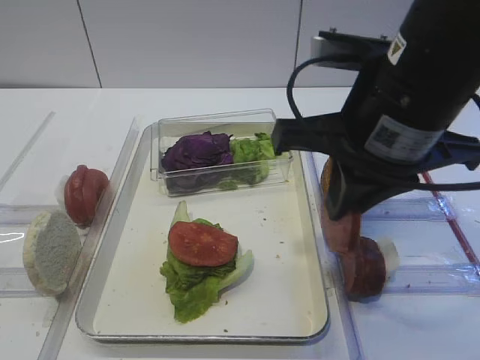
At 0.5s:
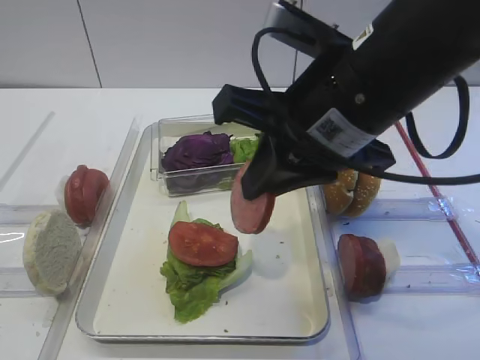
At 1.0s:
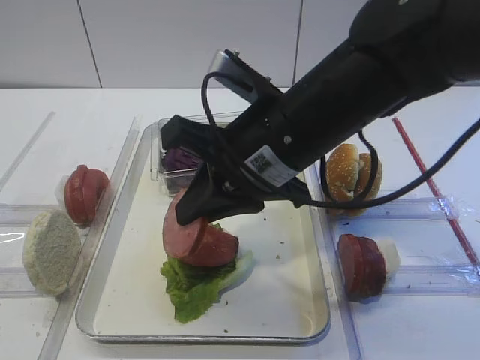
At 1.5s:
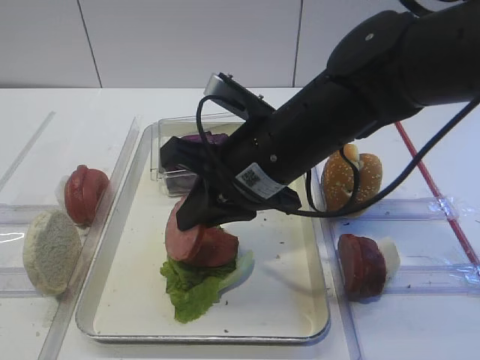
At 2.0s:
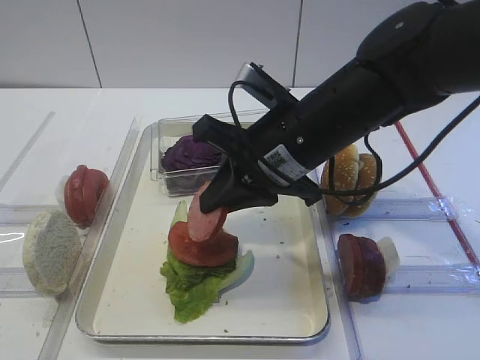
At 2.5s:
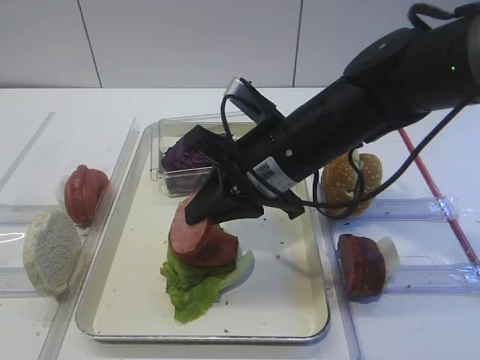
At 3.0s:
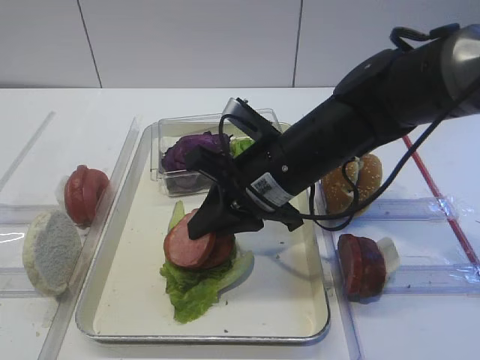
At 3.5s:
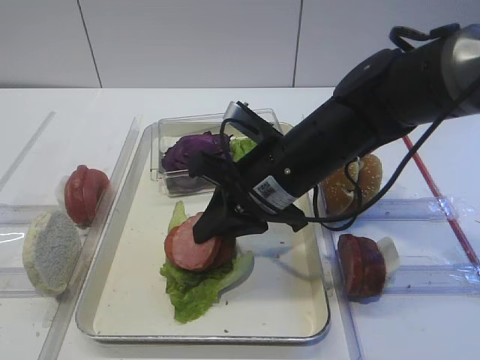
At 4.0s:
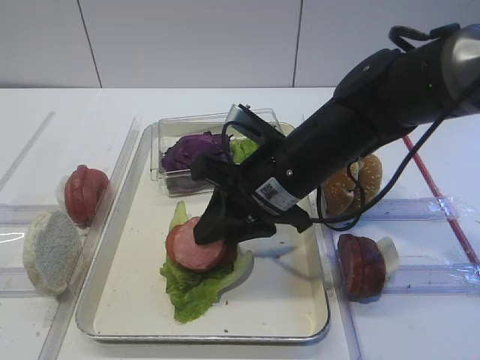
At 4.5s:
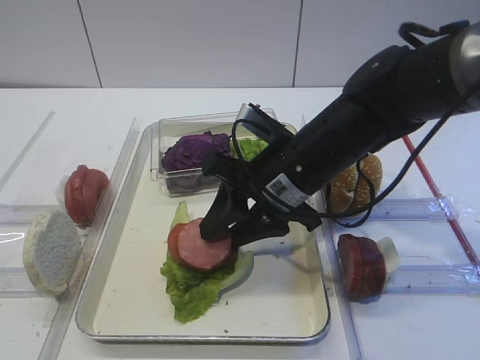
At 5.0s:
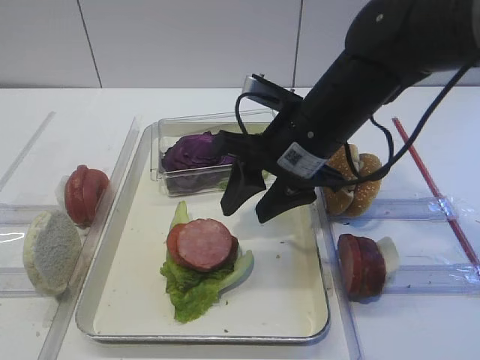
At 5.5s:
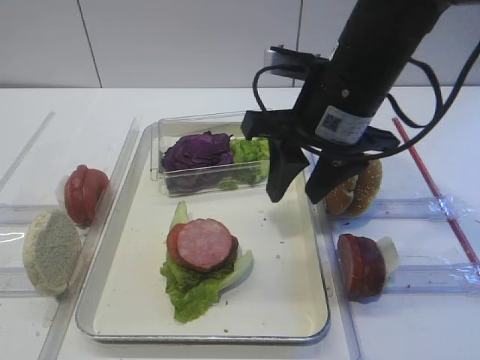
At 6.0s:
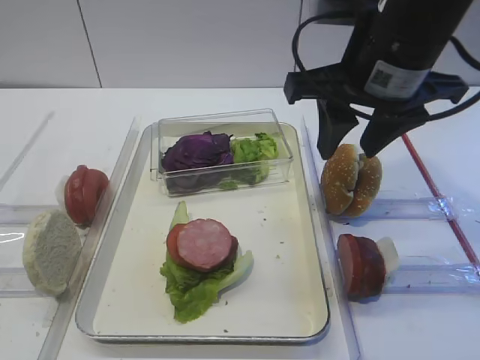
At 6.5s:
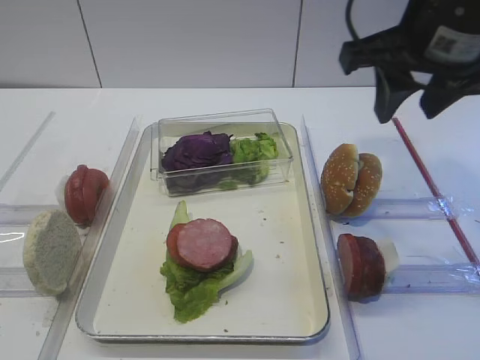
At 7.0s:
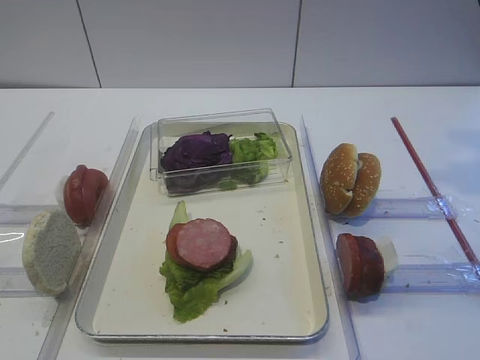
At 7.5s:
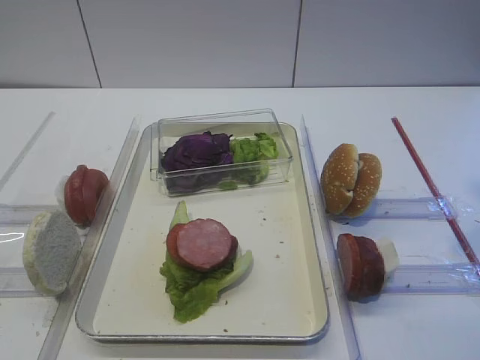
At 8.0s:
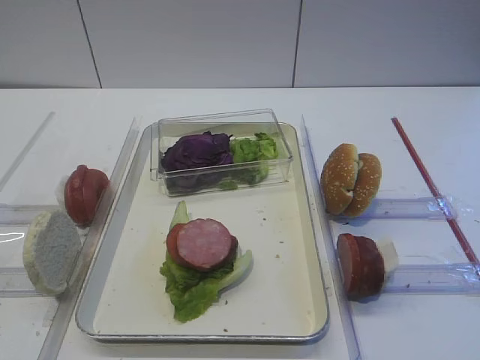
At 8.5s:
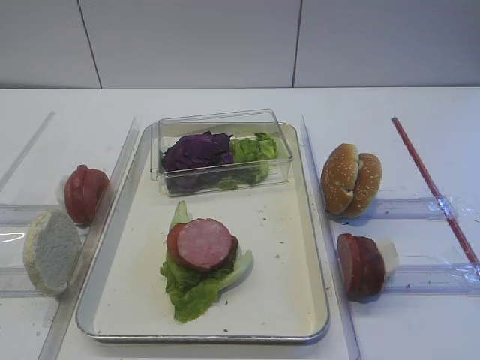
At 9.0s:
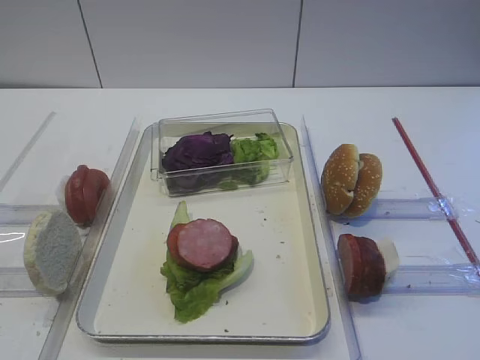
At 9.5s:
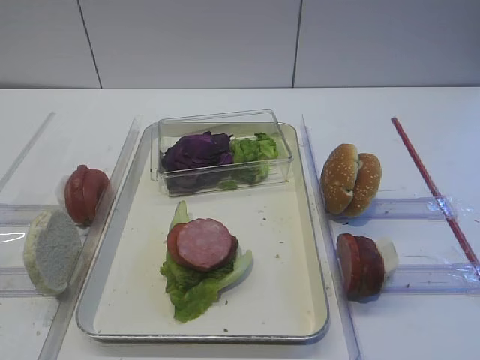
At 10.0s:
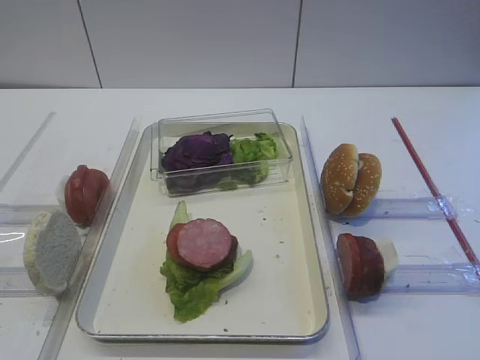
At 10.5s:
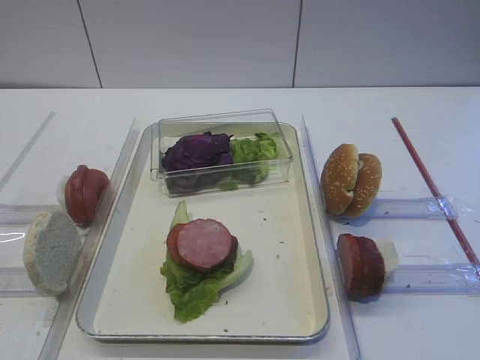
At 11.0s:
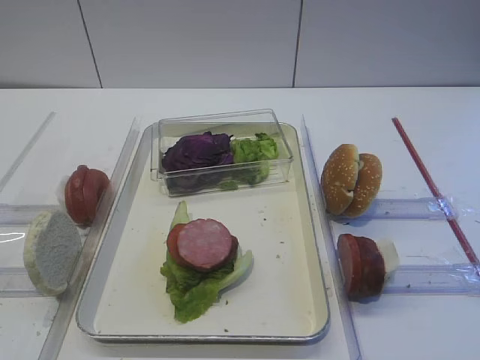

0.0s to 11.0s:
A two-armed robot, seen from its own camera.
Step, 0.0s to 4.5s: Place the cutlet on the tomato slice with the right gripper.
0.0s to 2.0s: The right gripper heads downward and forward, covering about 10 cm.
2.0s to 3.5s: The grippers make only small movements.
3.5s to 5.5s: The right gripper moves upward, approximately 10 cm, and opens its fingers.
5.5s to 7.5s: The right gripper heads to the right, backward and upward, covering roughly 20 cm.
9.0s to 11.0s: Neither gripper changes place.

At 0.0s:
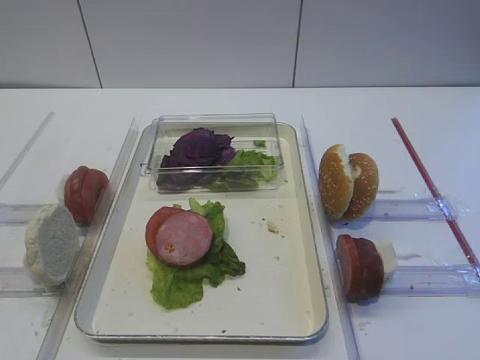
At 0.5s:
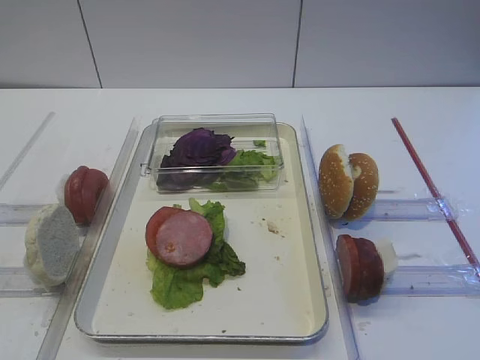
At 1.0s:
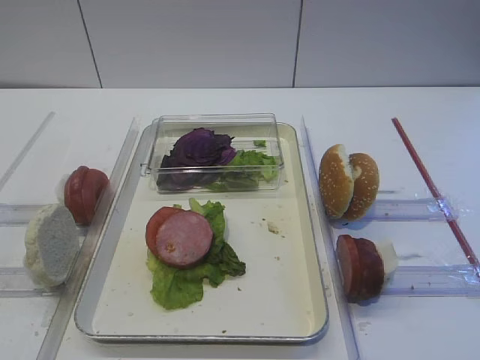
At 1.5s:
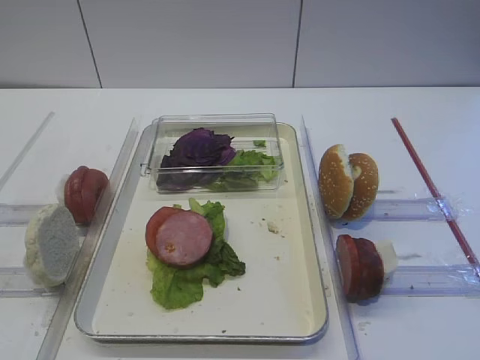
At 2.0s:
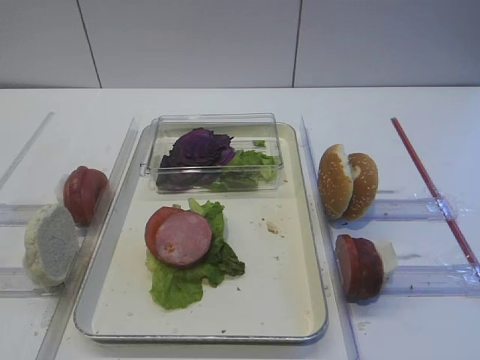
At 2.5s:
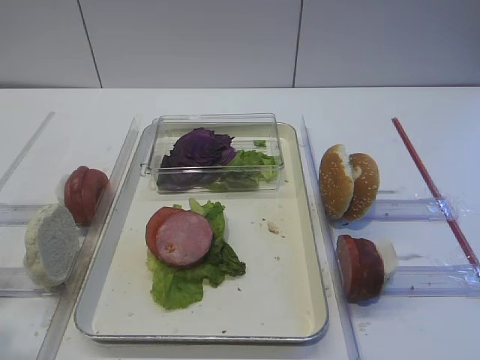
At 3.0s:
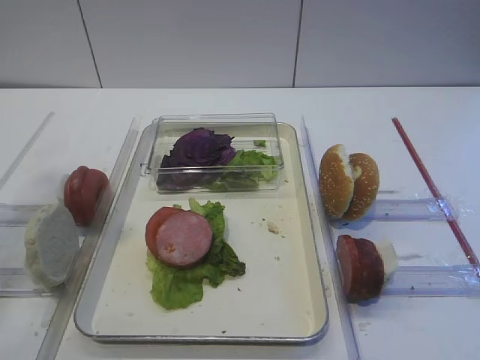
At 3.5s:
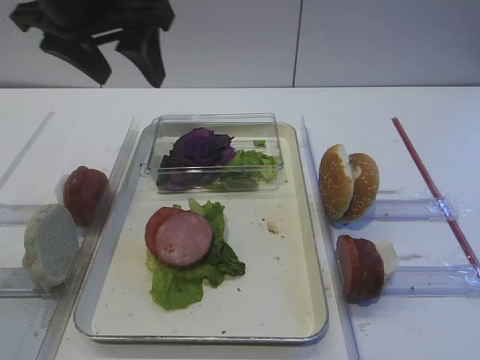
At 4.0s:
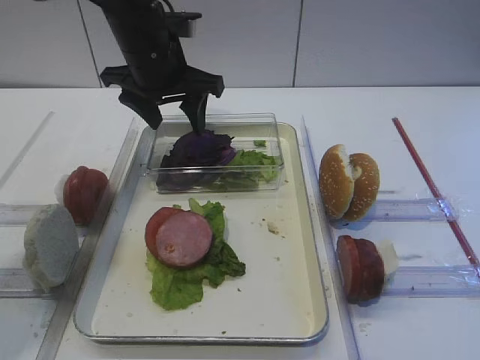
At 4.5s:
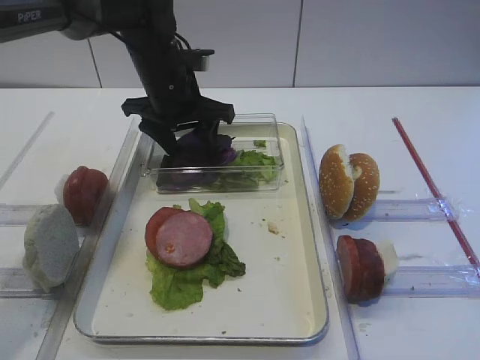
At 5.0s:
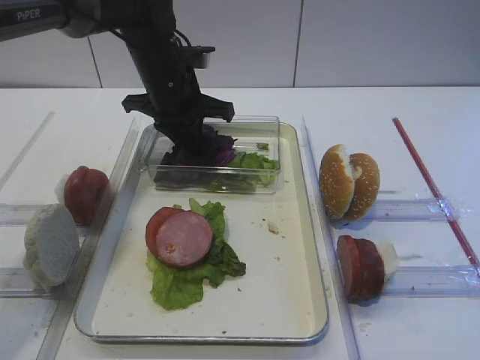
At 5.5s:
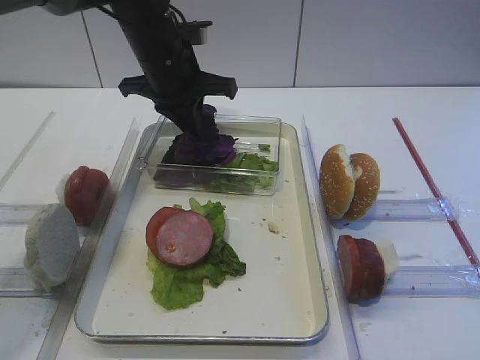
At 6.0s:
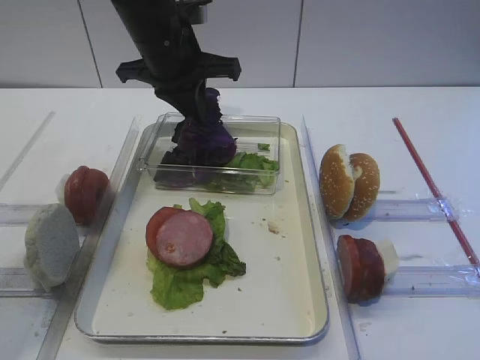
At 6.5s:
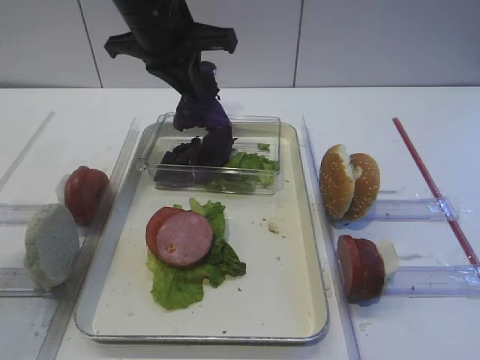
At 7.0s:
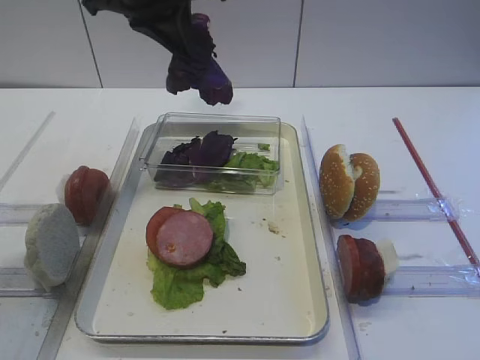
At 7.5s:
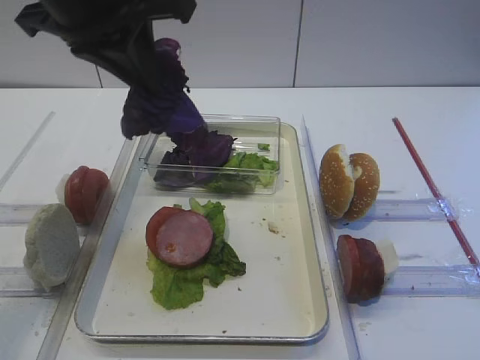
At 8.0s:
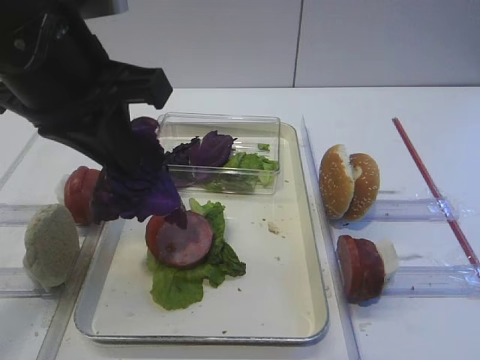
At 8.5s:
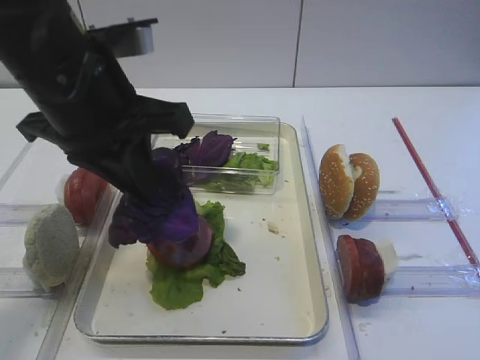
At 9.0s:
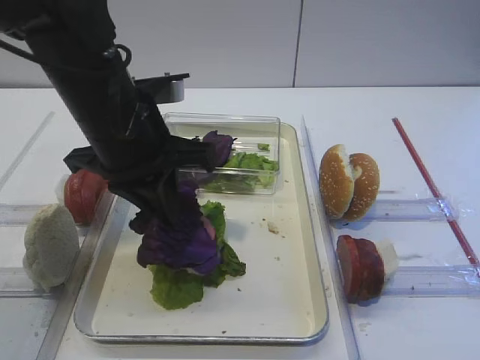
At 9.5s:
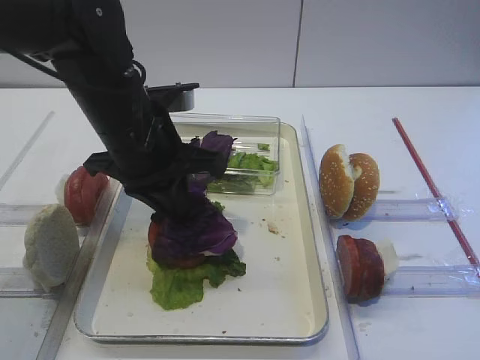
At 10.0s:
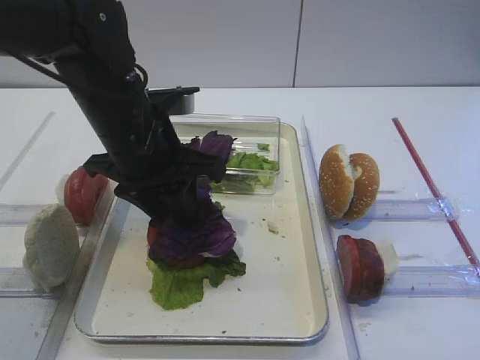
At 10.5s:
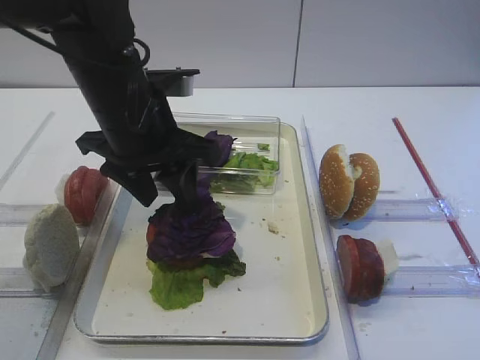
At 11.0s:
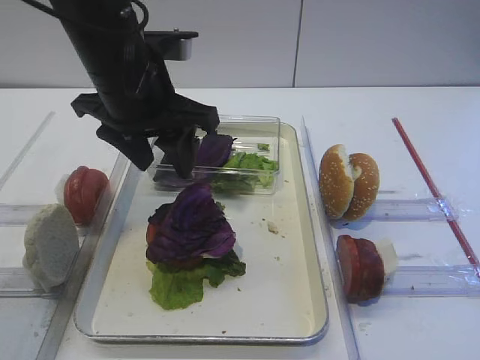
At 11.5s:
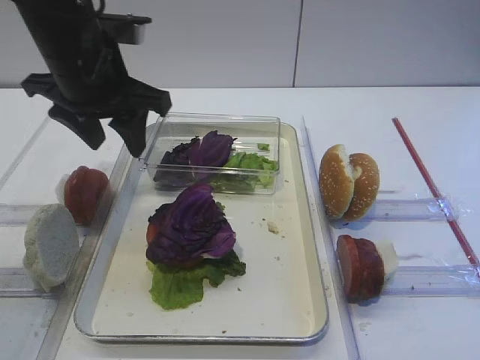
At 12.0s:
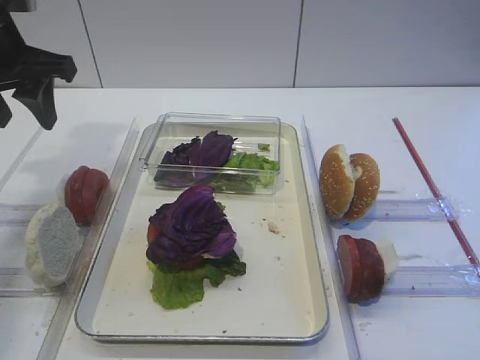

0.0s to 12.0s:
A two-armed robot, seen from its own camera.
Step, 0.0s to 6.0s: Pick up the purple cabbage with the left gripper.
Step, 6.5s to 10.5s: Place the purple cabbage on the cutlet with the left gripper.
2.0s to 4.0s: The left gripper shifts roughly 50 cm forward and to the right, and opens up.
4.0s to 6.0s: The left gripper closes.
6.0s to 8.0s: The left gripper moves backward, roughly 20 cm.
8.0s to 10.0s: The left gripper goes some 10 cm downward and forward, and opens.
10.0s to 12.0s: The left gripper travels to the left and upward by about 15 cm.

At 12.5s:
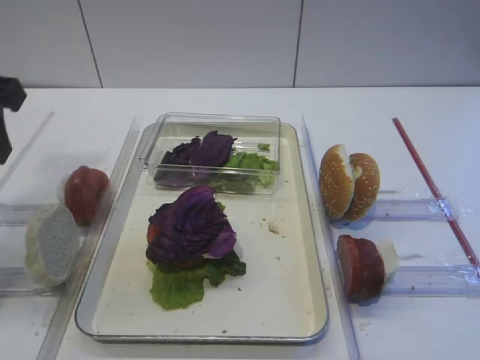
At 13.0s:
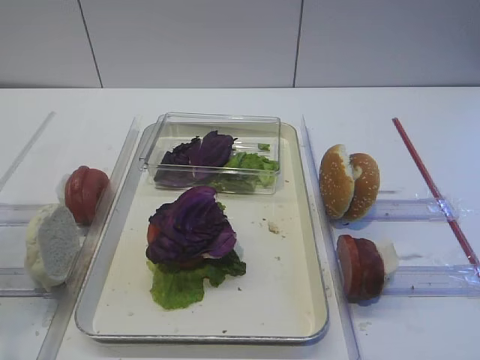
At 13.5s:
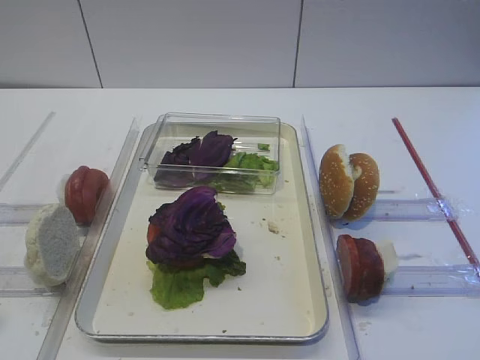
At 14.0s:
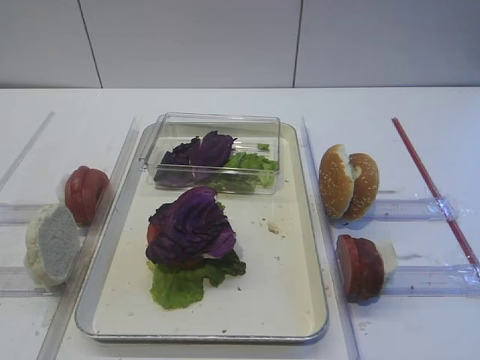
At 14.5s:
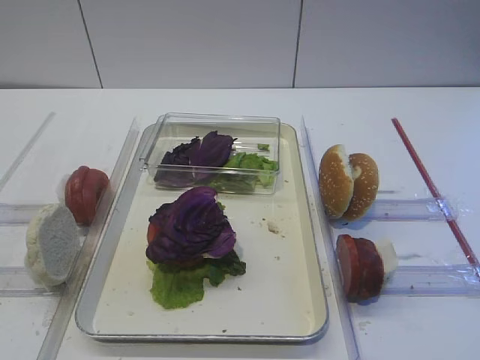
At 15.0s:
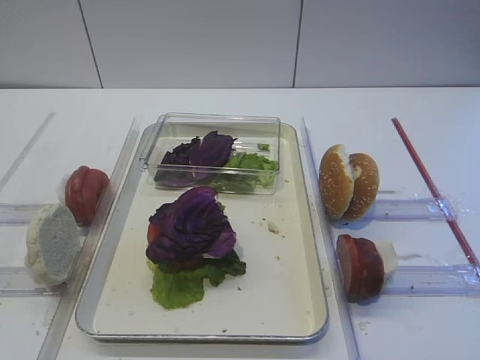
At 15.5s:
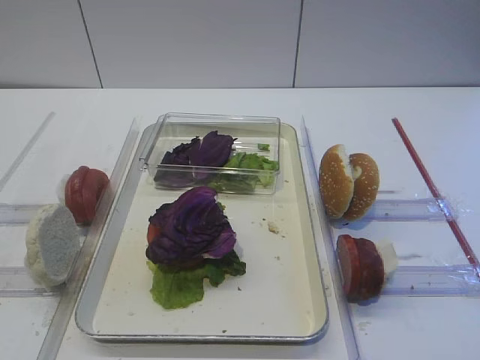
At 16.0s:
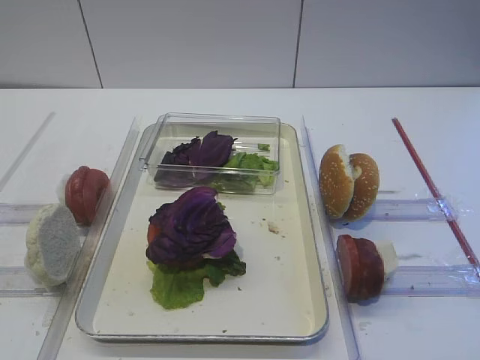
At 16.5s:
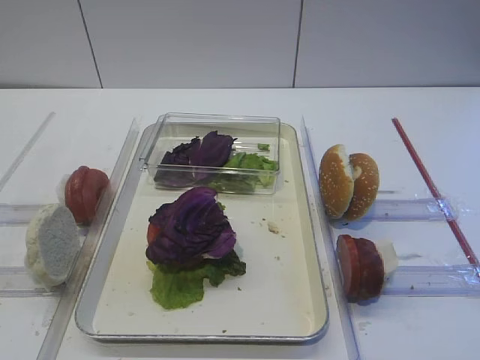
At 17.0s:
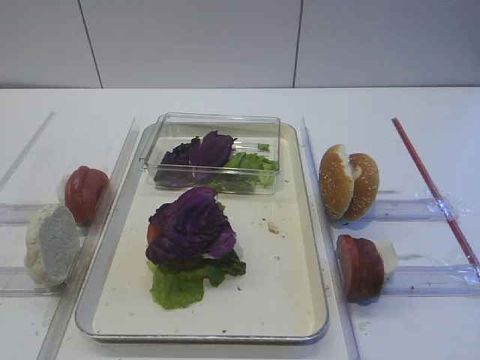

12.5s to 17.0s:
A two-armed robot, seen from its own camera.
12.5s to 14.5s: The left gripper is displaced backward by roughly 25 cm.
14.5s to 17.0s: Neither gripper changes place.
